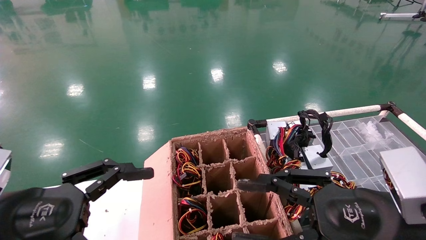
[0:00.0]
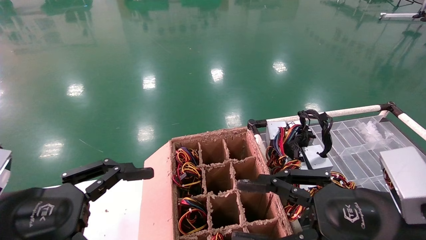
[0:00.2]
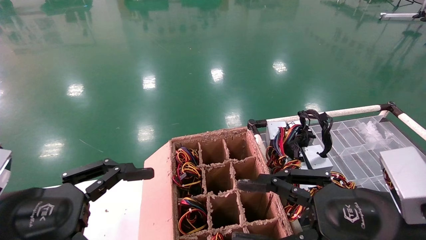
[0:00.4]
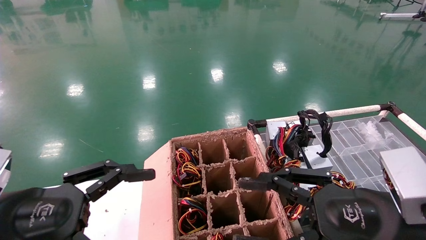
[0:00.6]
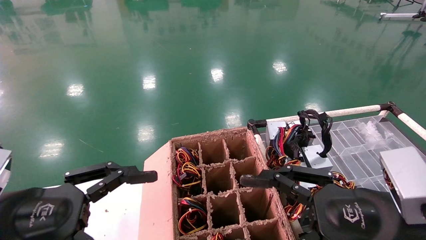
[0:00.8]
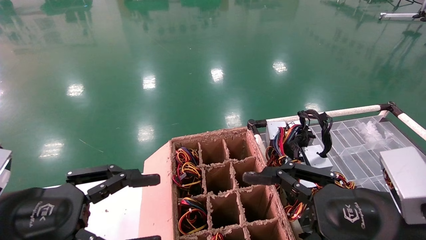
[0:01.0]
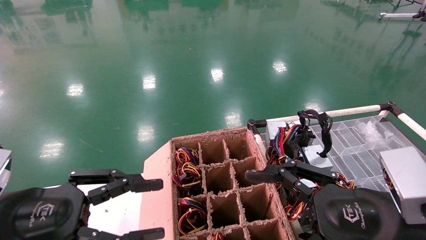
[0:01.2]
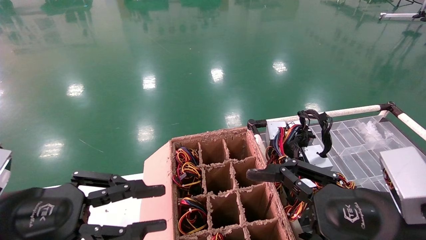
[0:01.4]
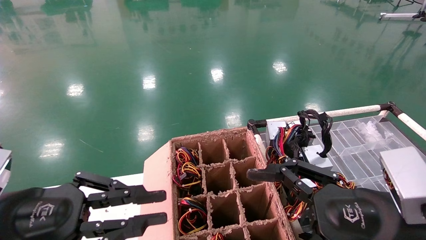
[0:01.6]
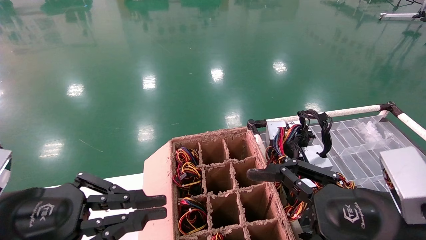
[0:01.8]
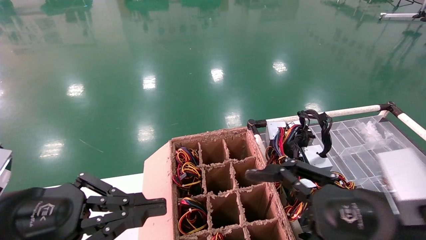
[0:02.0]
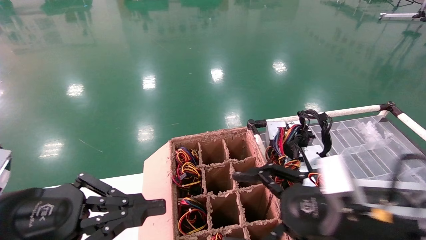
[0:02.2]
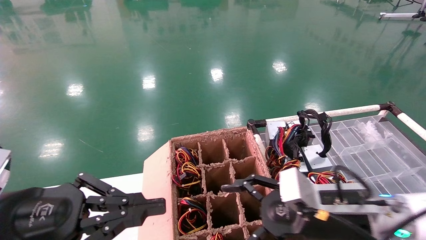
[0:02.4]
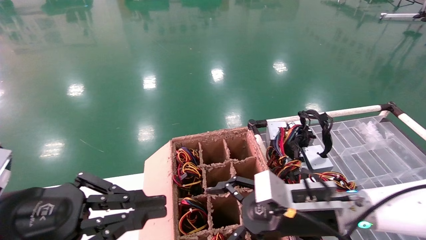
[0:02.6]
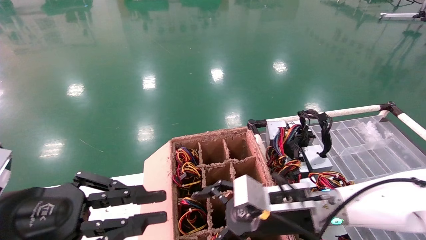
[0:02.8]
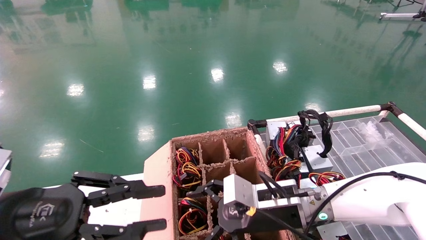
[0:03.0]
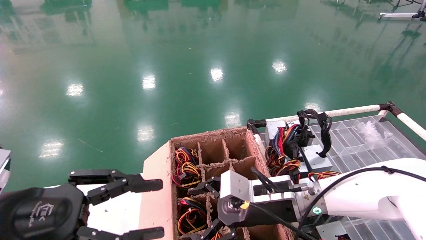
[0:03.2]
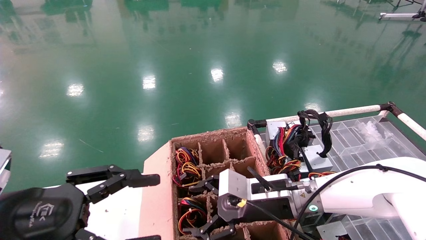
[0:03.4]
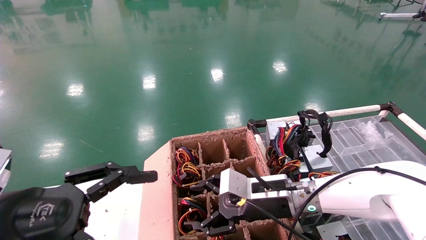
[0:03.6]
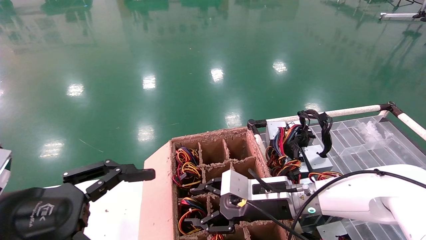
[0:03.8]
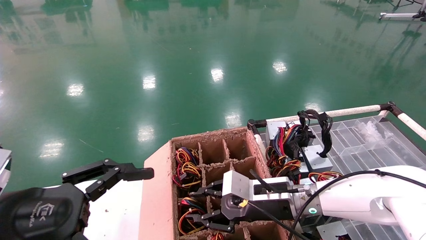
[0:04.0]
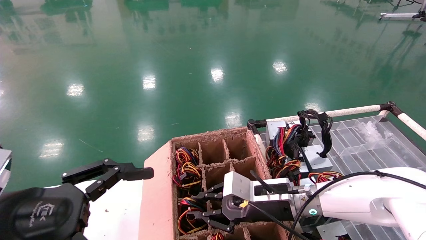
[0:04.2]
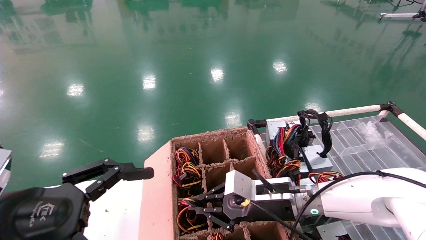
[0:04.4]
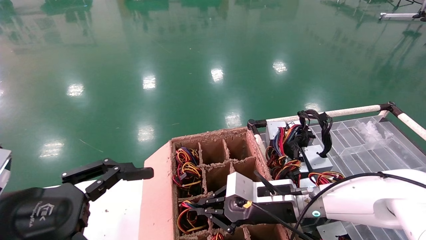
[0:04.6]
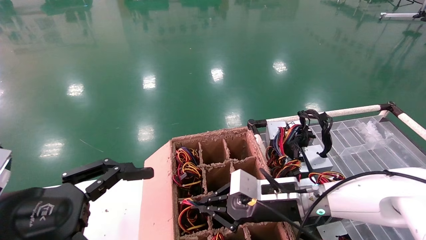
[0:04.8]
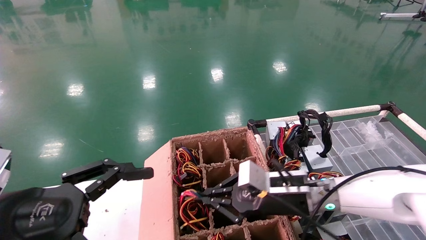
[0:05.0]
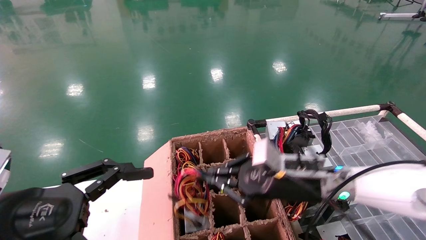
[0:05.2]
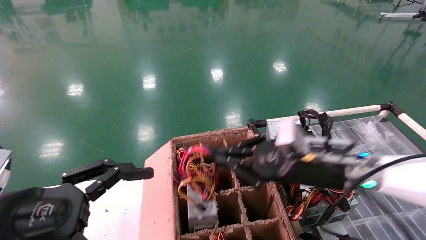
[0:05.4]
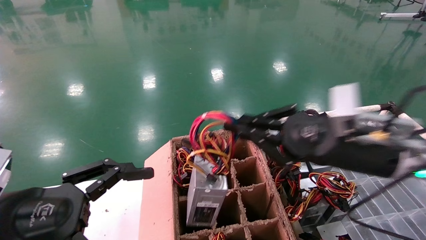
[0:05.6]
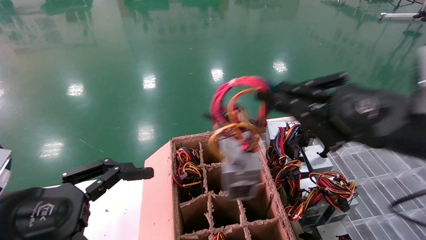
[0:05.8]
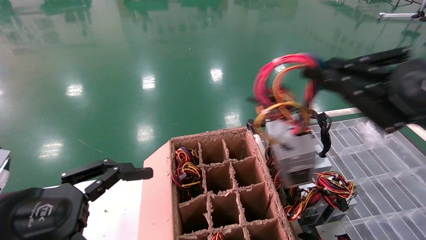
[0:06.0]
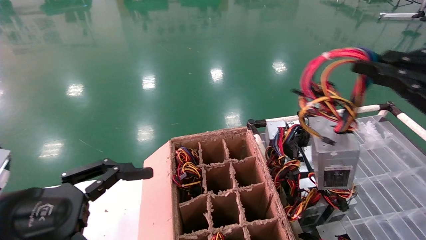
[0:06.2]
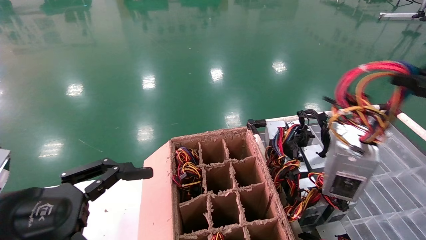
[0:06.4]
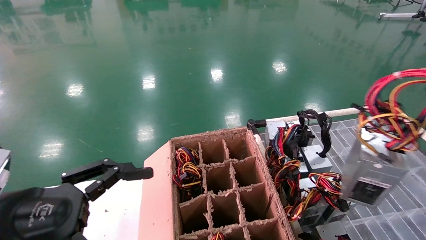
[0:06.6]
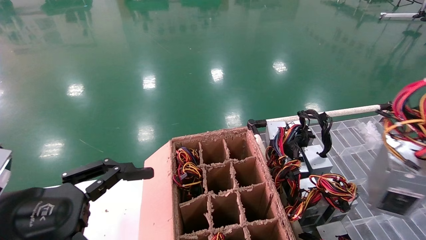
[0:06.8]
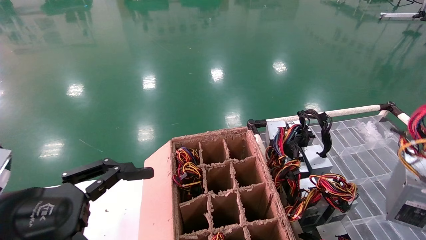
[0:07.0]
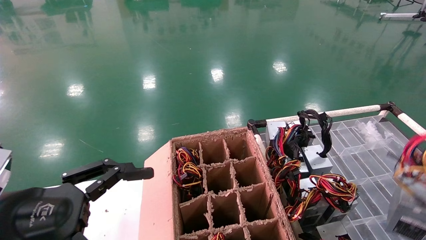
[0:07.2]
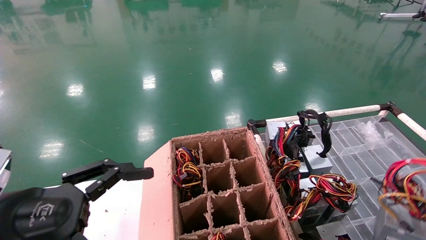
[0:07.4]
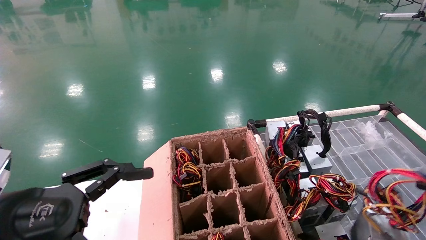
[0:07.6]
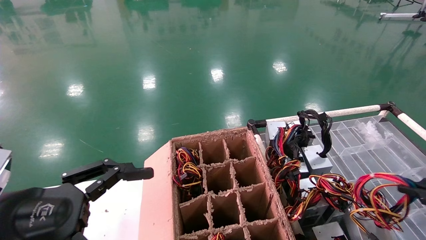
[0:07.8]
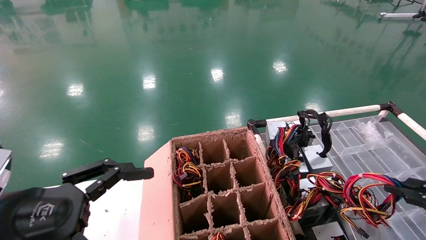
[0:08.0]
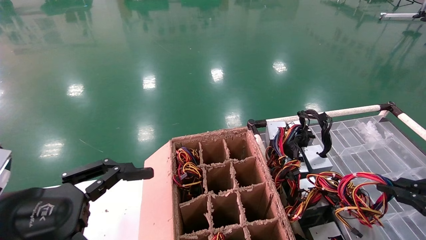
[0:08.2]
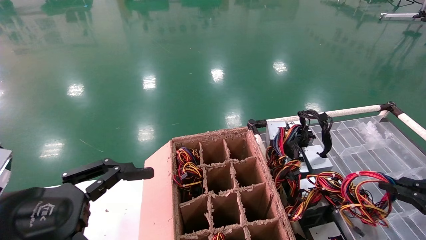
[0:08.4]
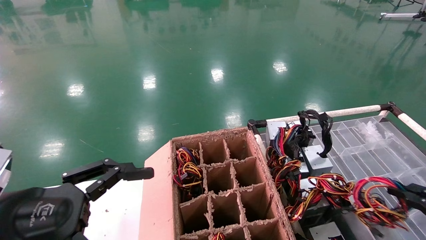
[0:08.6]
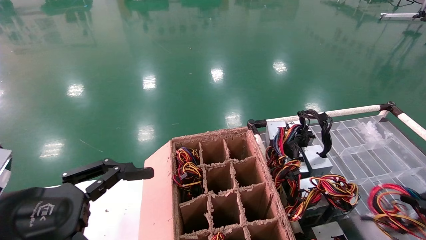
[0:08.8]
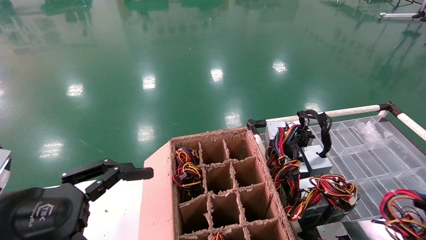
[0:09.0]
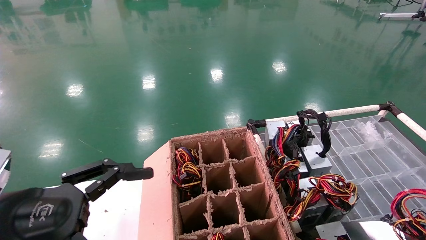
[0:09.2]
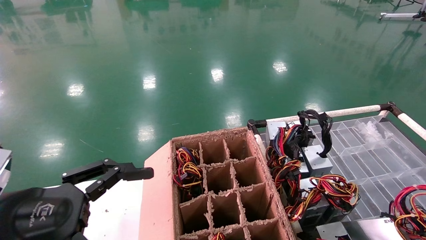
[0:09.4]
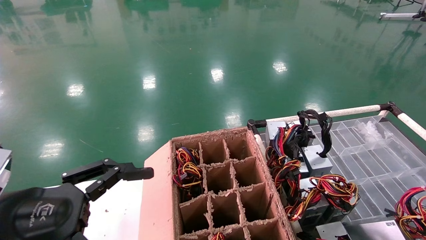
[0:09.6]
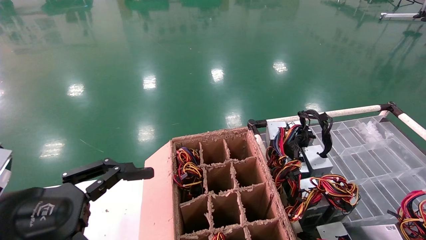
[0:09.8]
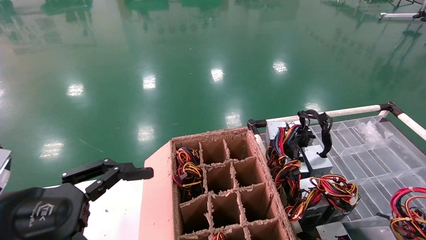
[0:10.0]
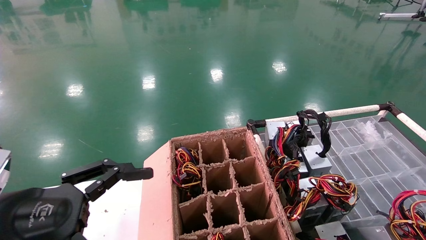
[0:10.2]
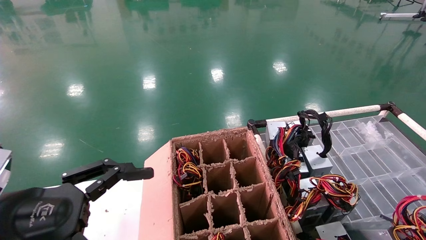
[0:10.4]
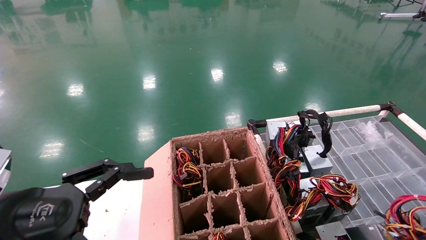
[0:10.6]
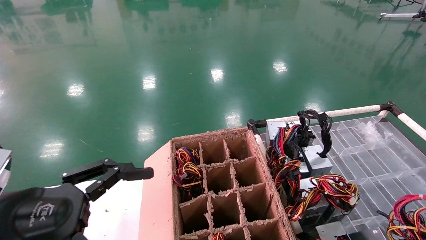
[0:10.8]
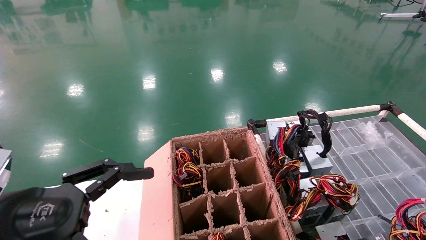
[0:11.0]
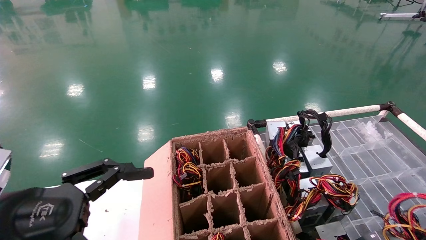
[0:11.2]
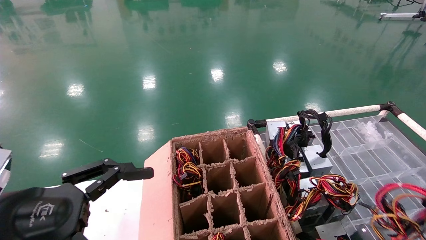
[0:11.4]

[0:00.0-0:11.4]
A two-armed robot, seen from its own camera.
Step, 0:02.2 to 0:04.6: Grab and lift the power supply from the large box.
0:00.0 to 0:01.4: The left gripper closes up. Meanwhile the right gripper opens up.
0:01.4 to 0:02.8: The right gripper moves forward, to the left and downward, about 20 cm.
0:02.8 to 0:04.2: The left gripper opens up; the right gripper moves forward, approximately 5 cm, and closes up.
0:04.2 to 0:05.6: The right gripper is displaced upward, to the right and backward by roughly 20 cm.
0:05.6 to 0:07.2: The right gripper heads to the right and backward, covering approximately 30 cm.
0:07.2 to 0:08.6: The right gripper shifts some 10 cm downward and forward.
0:08.6 to 0:10.0: The right gripper is displaced to the right by roughly 5 cm.
0:10.0 to 0:11.4: There are only small adjustments of the grippers.

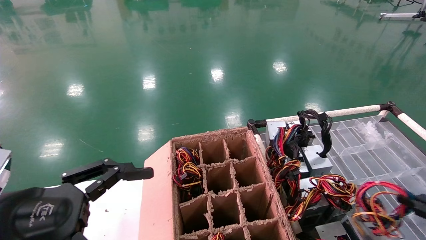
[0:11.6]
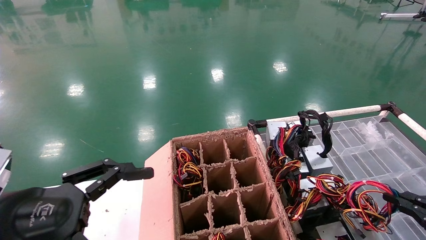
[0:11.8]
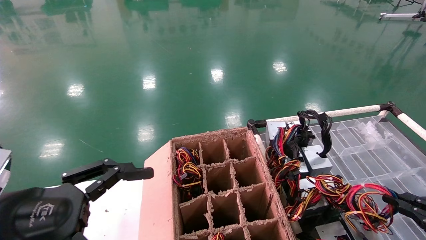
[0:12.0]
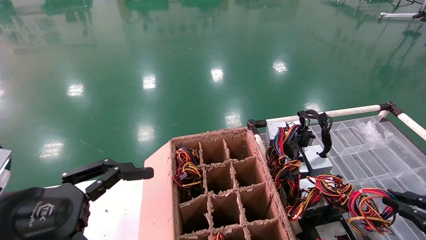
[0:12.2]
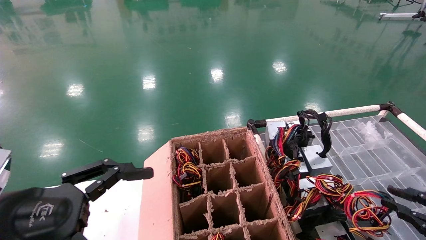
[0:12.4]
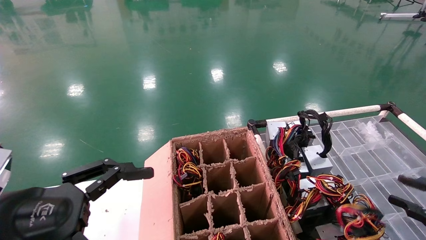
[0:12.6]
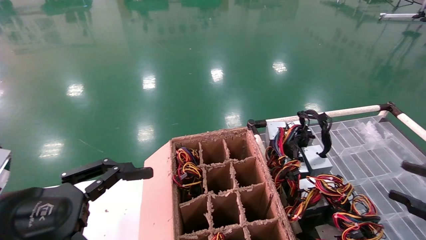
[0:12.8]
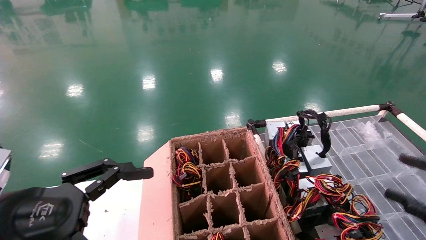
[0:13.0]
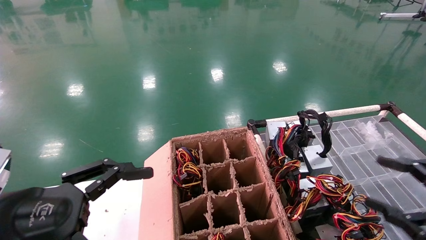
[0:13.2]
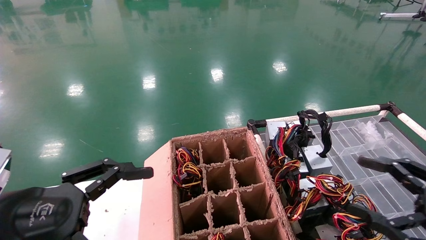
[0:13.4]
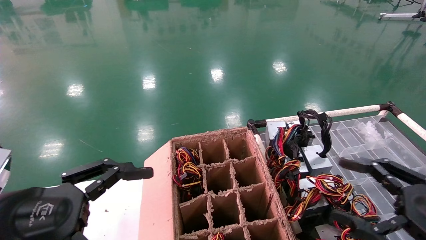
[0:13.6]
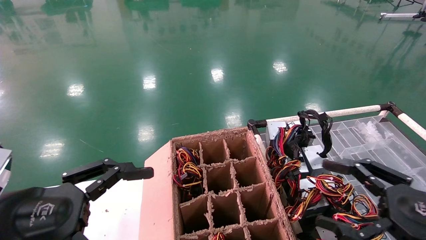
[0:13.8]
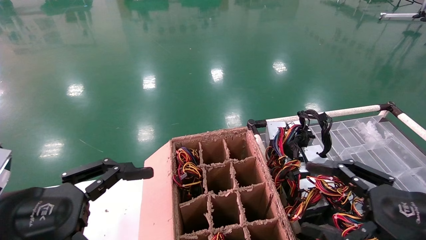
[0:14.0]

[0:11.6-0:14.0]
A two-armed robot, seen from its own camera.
0:11.6 to 0:12.8: The right gripper opens up.
0:12.8 to 0:14.0: The right gripper goes some 15 cm to the left, and opens.
